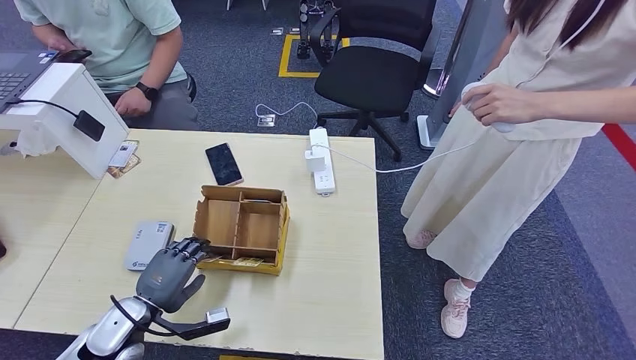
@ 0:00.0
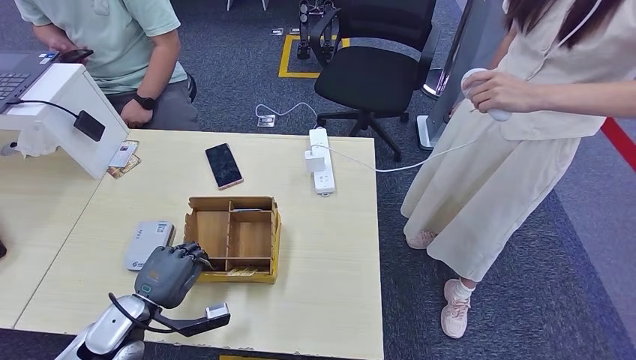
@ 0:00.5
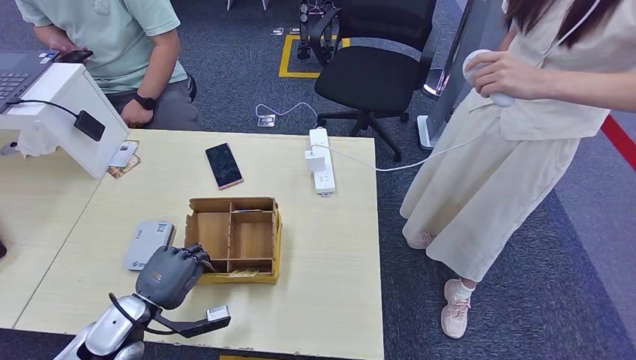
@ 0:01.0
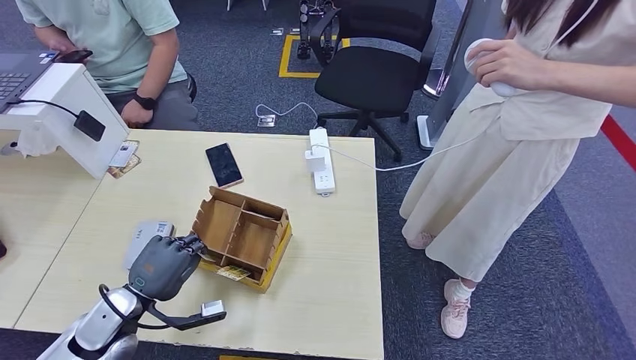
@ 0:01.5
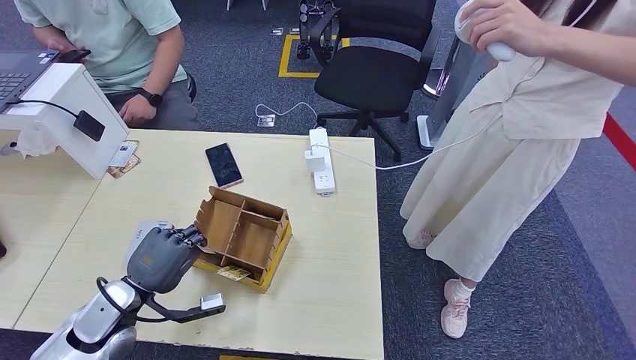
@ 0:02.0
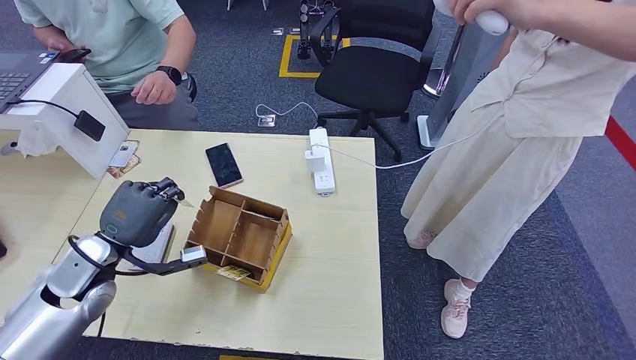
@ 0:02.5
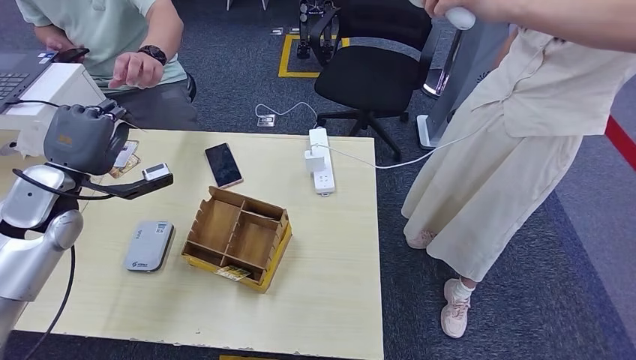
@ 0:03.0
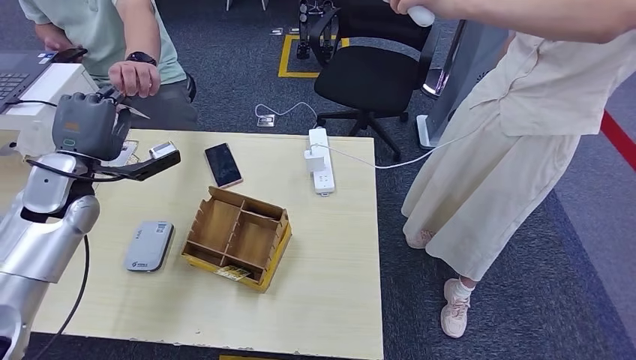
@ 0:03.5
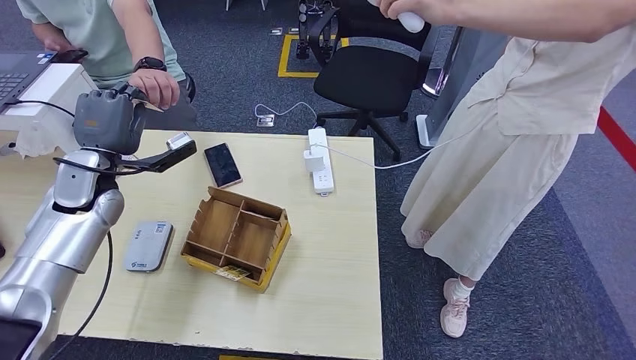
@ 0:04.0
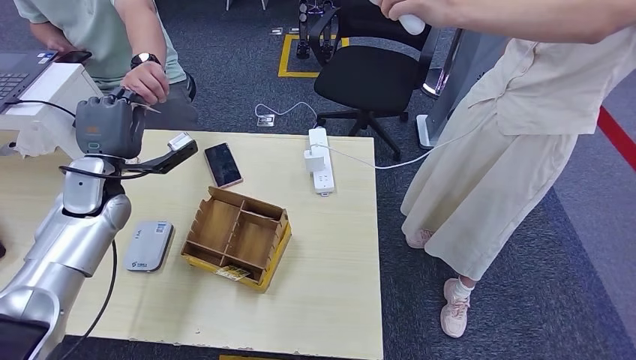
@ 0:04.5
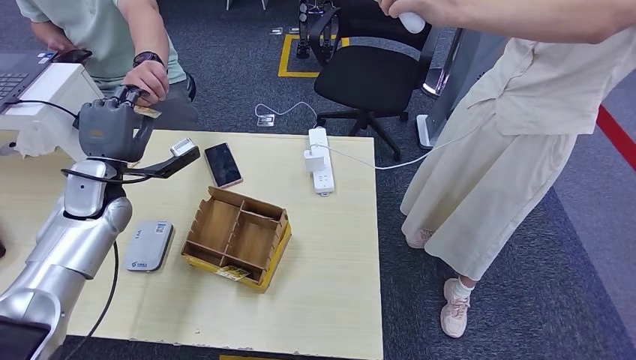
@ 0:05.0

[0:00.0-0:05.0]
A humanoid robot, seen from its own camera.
Step, 0:00.5 to 0:05.0: Hand the room key to the person.
0:00.0 to 0:02.5: The left hand moves upward and forward, some 10 cm.
0:02.5 to 0:05.0: The left hand is displaced forward and upward by about 15 cm.
